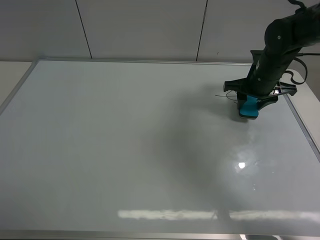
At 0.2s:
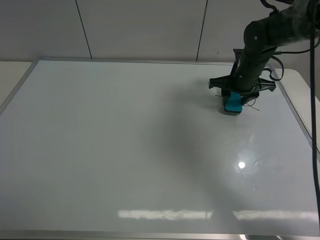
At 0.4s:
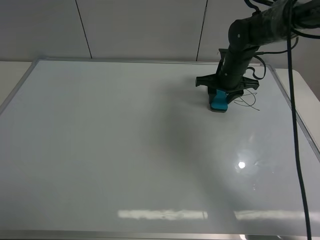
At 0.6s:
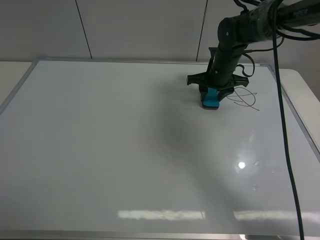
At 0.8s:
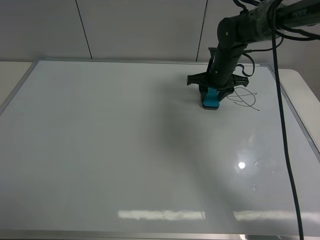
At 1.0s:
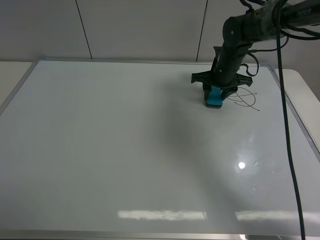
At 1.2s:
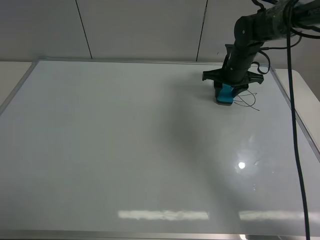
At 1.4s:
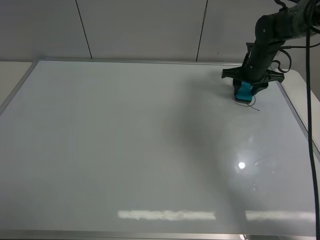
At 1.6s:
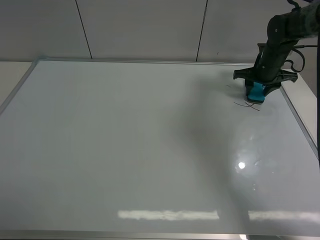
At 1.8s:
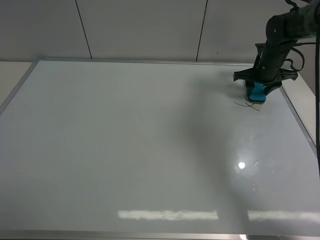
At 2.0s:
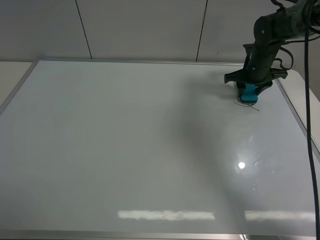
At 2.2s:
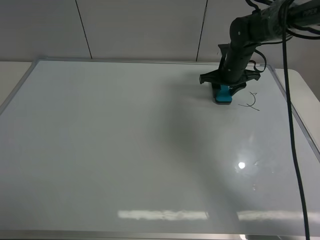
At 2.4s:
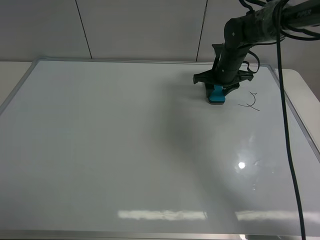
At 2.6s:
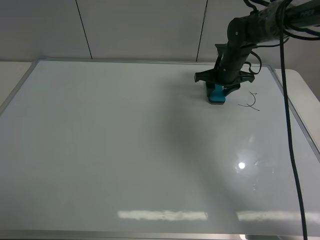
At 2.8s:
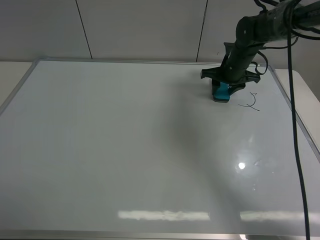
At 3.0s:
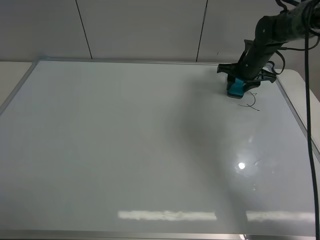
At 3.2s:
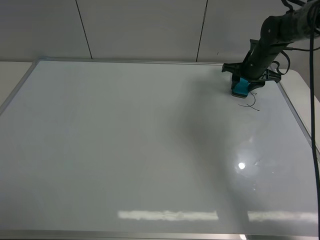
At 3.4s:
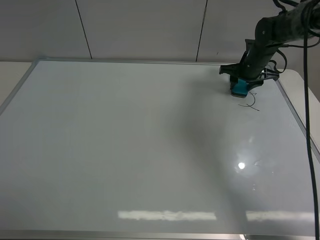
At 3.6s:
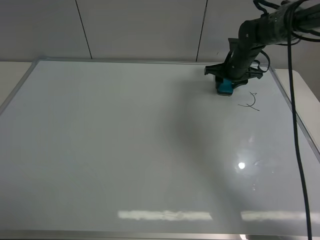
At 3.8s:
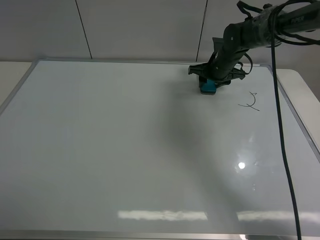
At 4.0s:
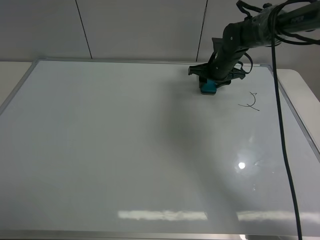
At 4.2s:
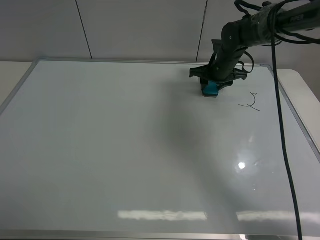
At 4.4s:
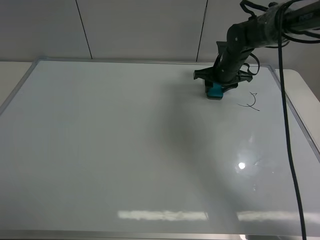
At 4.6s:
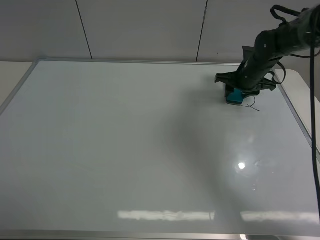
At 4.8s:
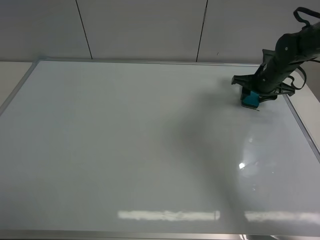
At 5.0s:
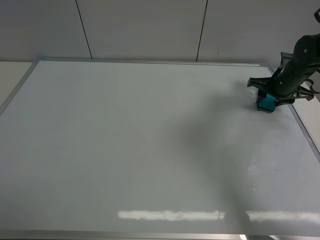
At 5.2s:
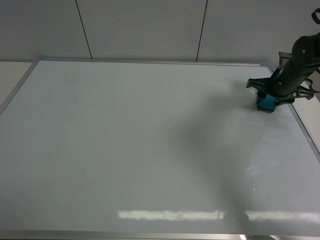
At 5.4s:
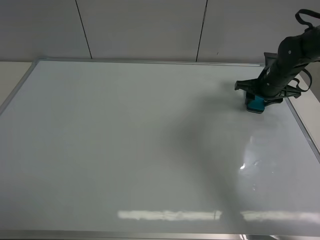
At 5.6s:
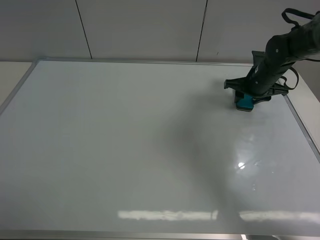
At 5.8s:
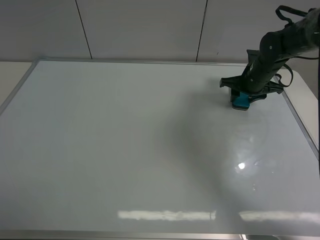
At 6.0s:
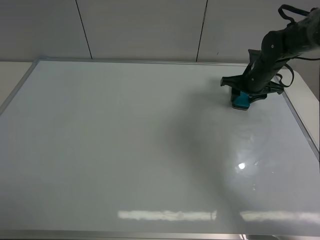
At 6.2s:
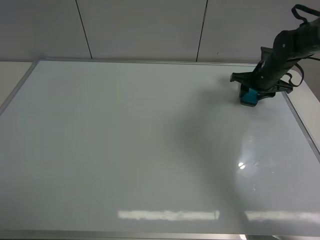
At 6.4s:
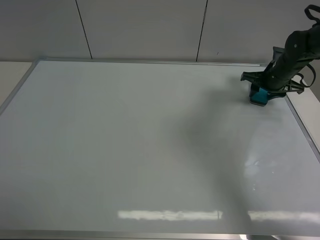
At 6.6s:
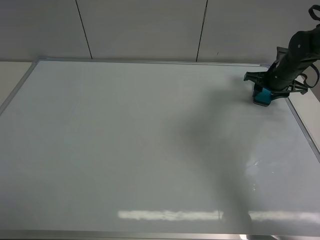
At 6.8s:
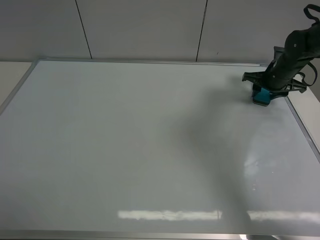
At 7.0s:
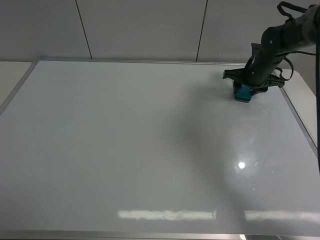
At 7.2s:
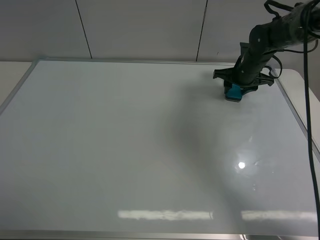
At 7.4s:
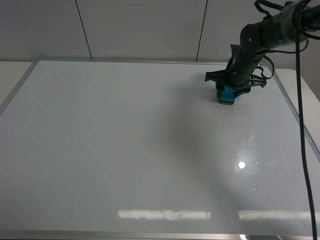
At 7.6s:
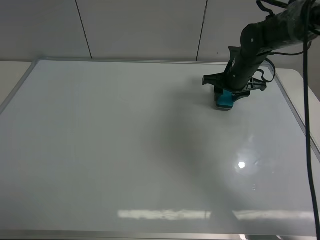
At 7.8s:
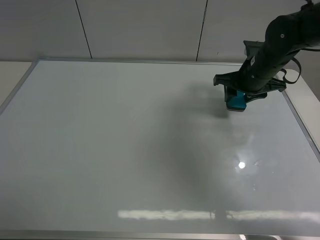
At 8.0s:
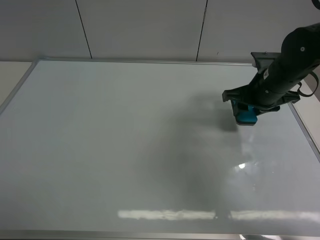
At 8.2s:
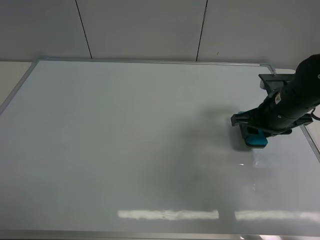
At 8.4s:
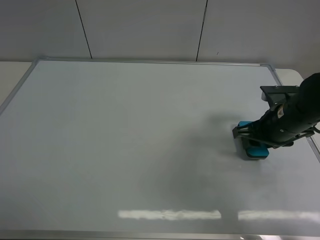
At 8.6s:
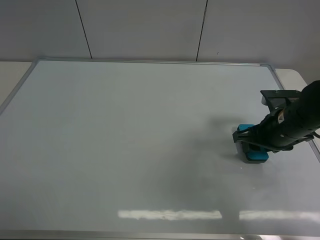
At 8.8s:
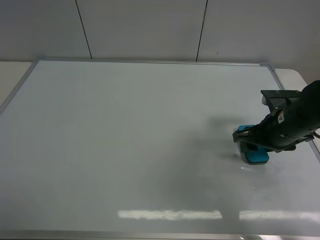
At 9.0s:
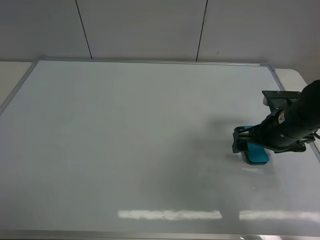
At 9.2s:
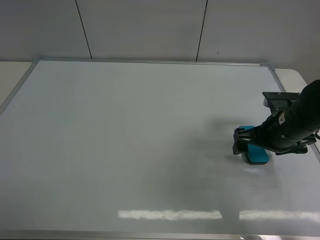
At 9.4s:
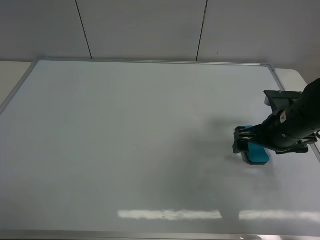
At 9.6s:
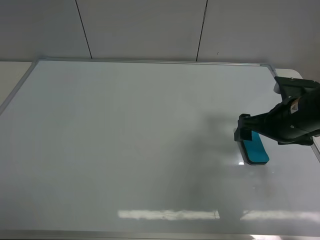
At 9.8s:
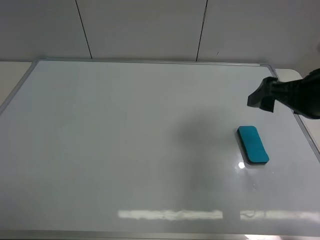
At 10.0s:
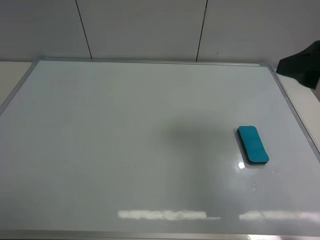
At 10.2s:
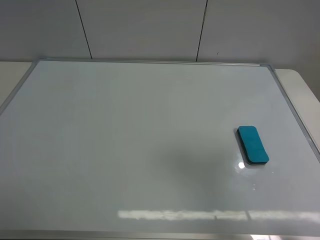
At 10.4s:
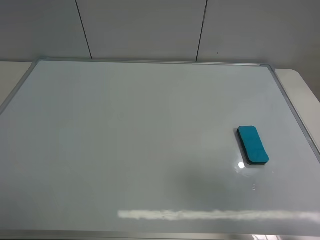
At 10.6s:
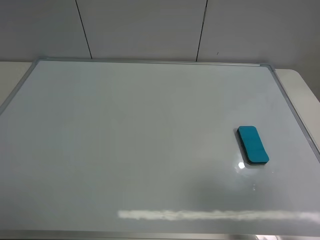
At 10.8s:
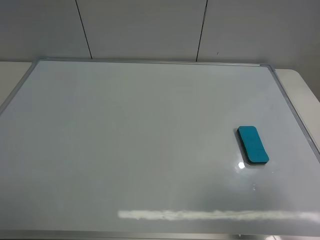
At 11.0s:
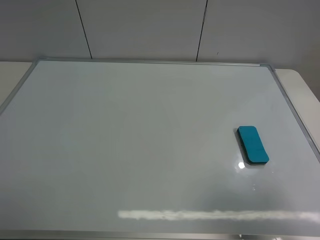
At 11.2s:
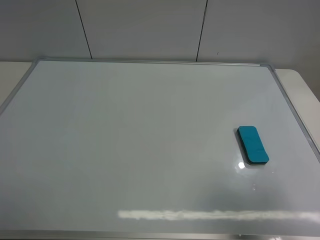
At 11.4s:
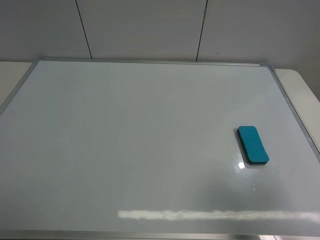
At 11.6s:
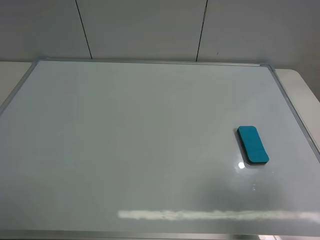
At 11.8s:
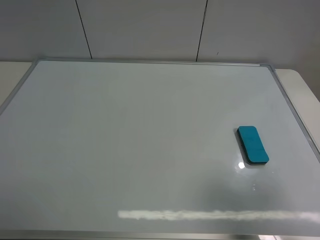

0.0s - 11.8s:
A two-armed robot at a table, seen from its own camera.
Task of the whole recording: use the left gripper to place the eraser in the right, use the right gripper to pick up the eraser, wipe the notes on the whiteboard clean, and then put it down.
Step, 0.0s - 7.2s: Wipe off the writing on the board with right gripper.
Step, 7.4s - 9.4s: Place the board eraser on the right side of board with right gripper.
0.0s - 1.4s: The right gripper heads forward, covering some 10 cm, and goes to the left and returns, roughly 10 cm each way.
1.4s - 3.0s: The right gripper reaches roughly 10 cm to the left, then returns.
3.0s - 4.4s: The right gripper travels to the left by about 10 cm.
4.4s - 6.0s: The right gripper moves to the right, some 5 cm.
6.0s - 7.4s: The right gripper heads to the left, covering roughly 5 cm.
7.4s - 8.8s: The right gripper travels backward by approximately 20 cm, and opens.
8.8s - 10.4s: The right gripper heads backward and upward, covering about 30 cm, and opens its fingers.
